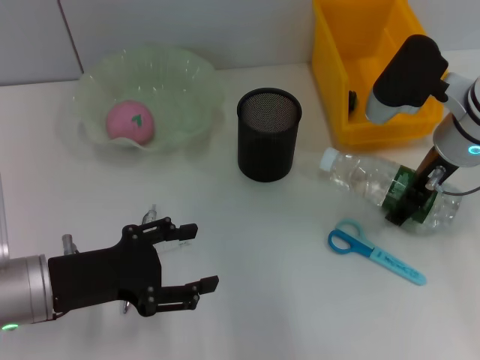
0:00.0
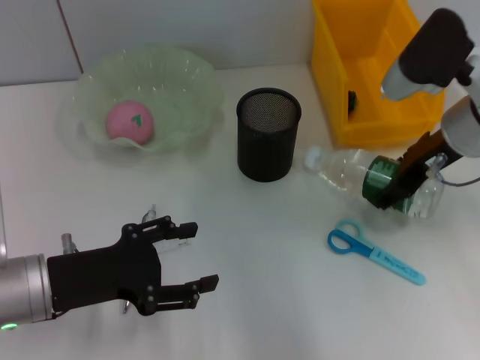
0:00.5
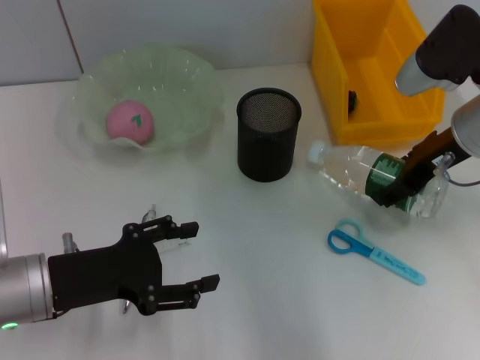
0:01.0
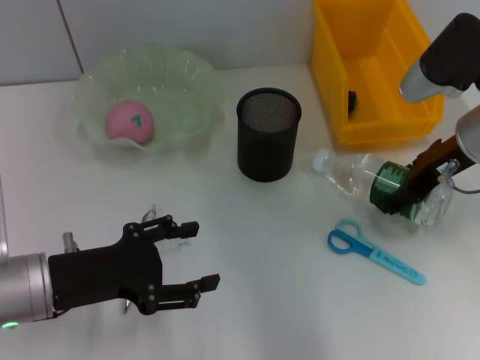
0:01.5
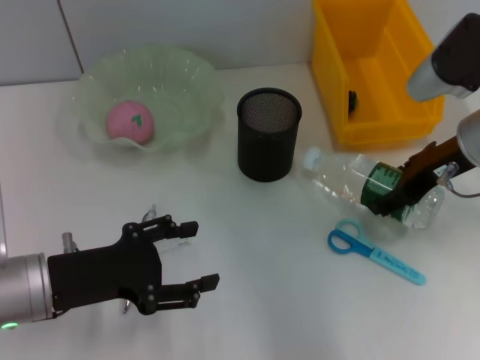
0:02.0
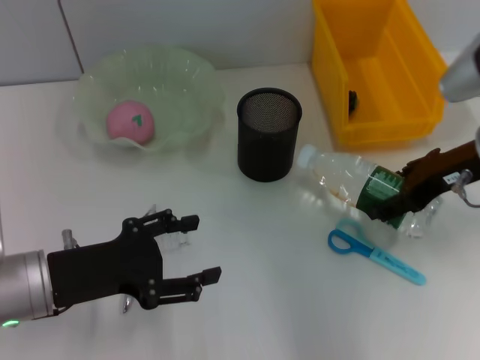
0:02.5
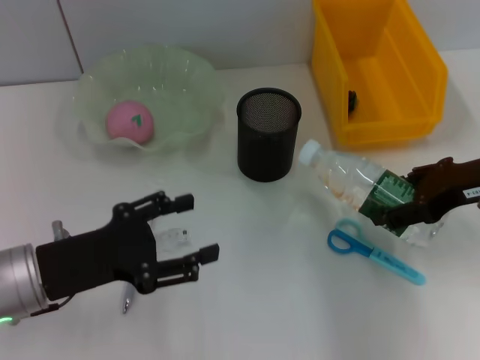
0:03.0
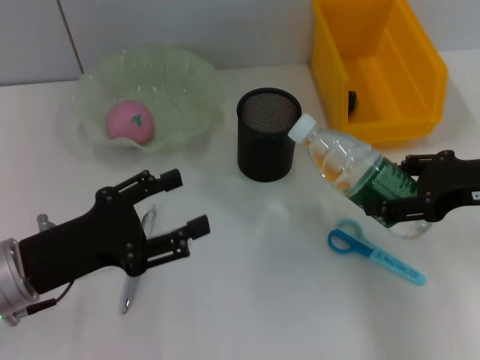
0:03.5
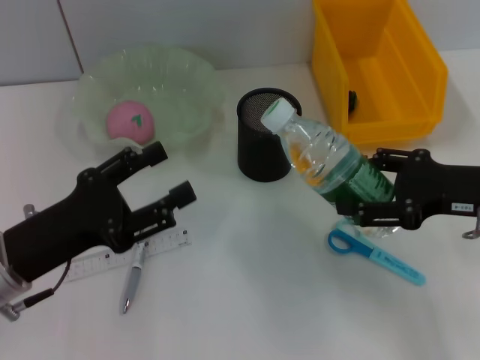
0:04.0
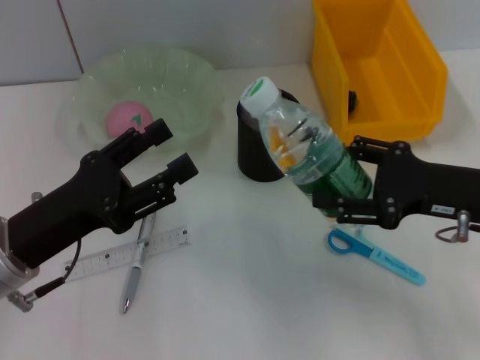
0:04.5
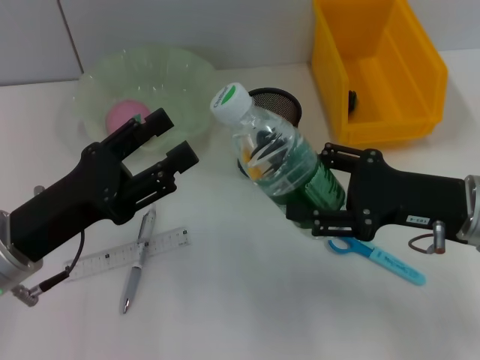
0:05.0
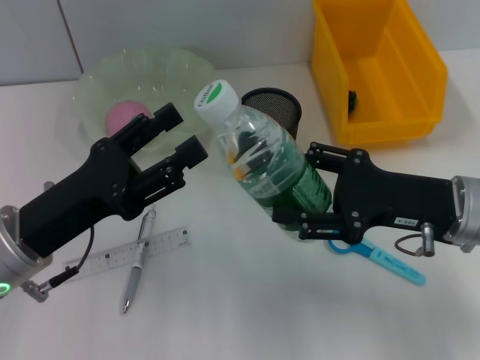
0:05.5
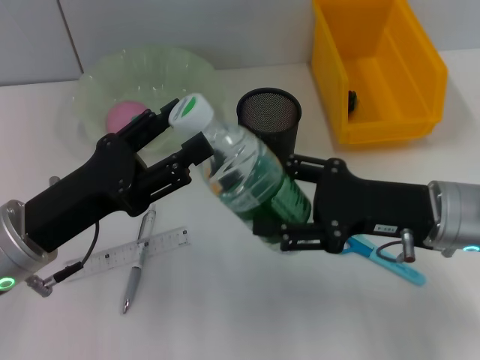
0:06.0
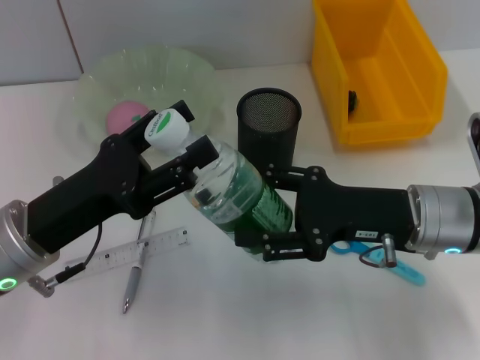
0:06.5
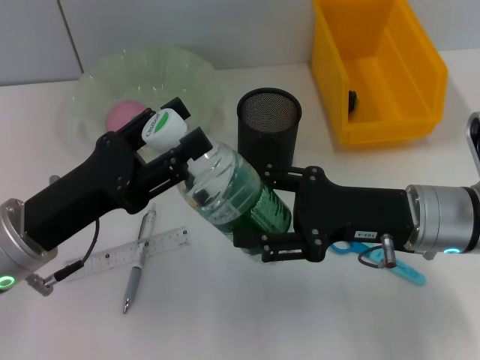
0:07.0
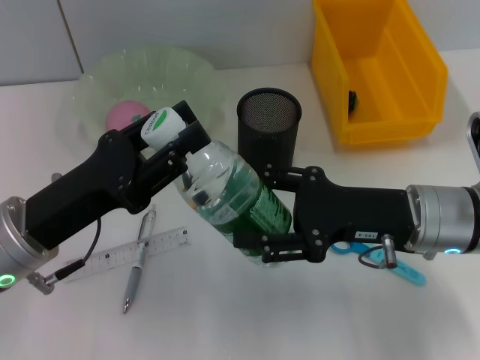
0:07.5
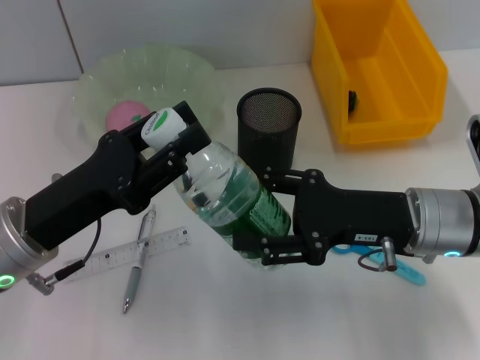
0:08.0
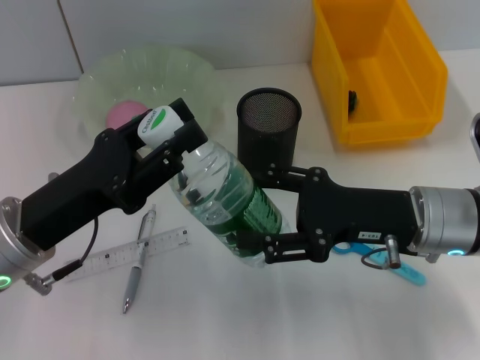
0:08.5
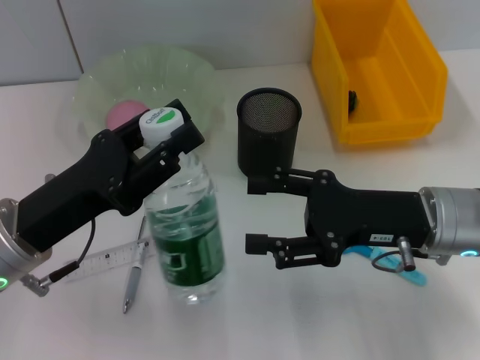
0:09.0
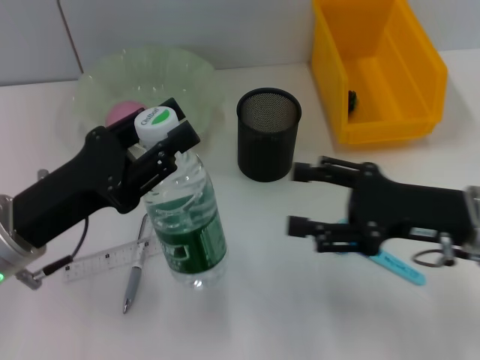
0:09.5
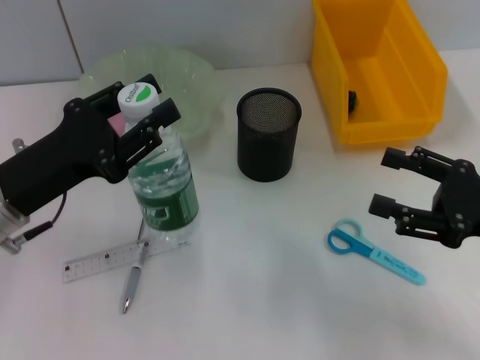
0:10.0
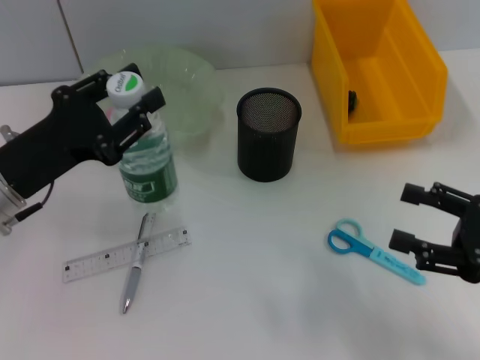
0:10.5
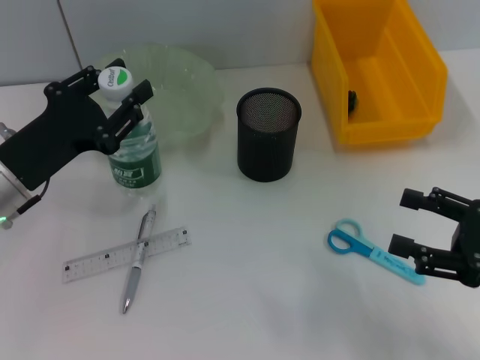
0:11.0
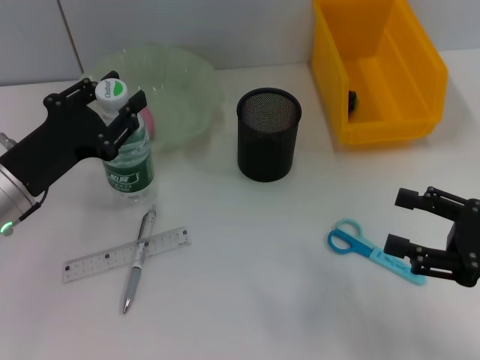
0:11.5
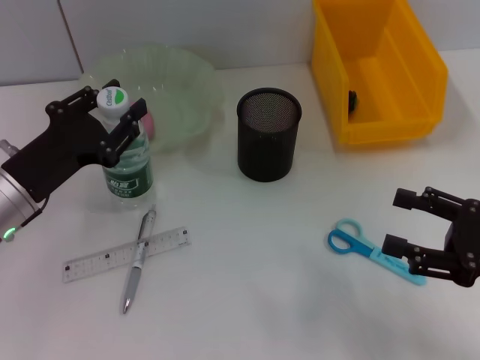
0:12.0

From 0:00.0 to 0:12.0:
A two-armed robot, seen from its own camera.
Step, from 0:00.5 to 0:09.0: Pass the water bottle from the right hand to the left hand.
From 0:00.0 to 0:02.0: There are only small adjustments of the grippers.
From 0:02.0 to 0:04.0: The right gripper shifts approximately 5 cm backward.
From 0:04.0 to 0:06.0: The right gripper shifts some 5 cm to the left.
From 0:06.0 to 0:08.0: The left gripper closes up.
From 0:08.0 to 0:10.0: The right gripper heads to the right, covering about 10 cm.

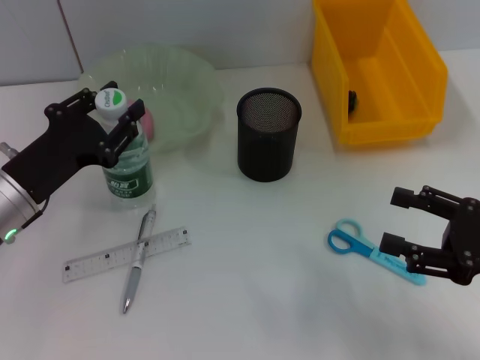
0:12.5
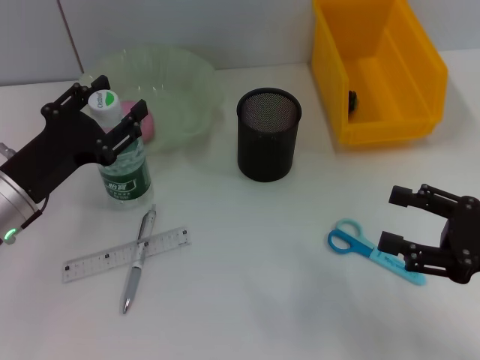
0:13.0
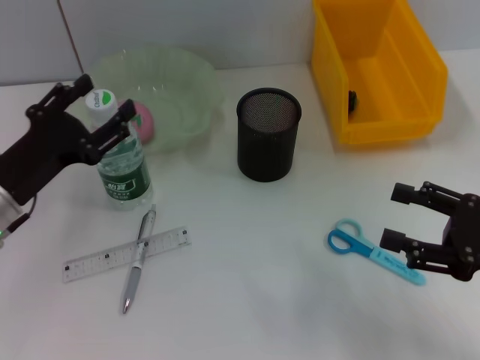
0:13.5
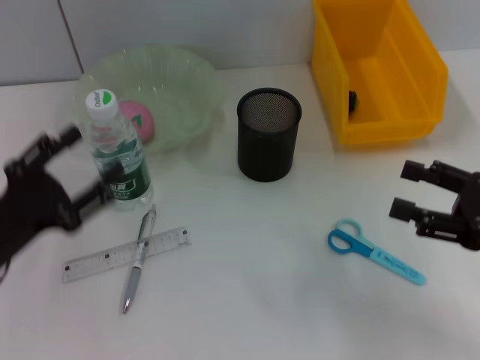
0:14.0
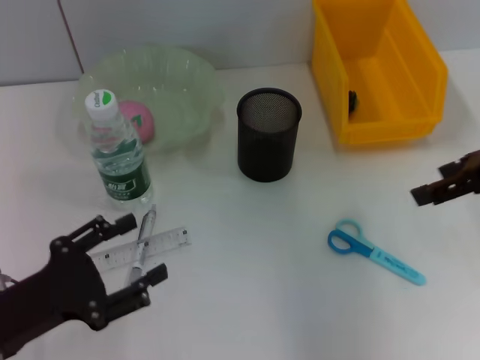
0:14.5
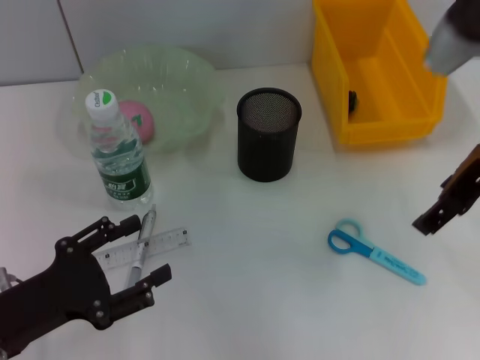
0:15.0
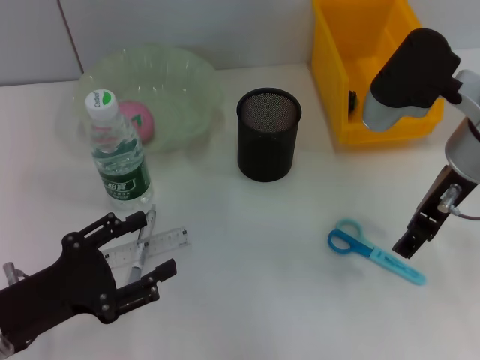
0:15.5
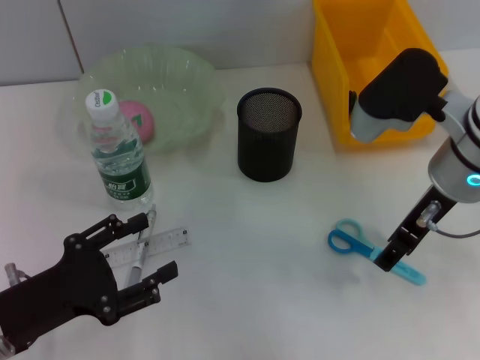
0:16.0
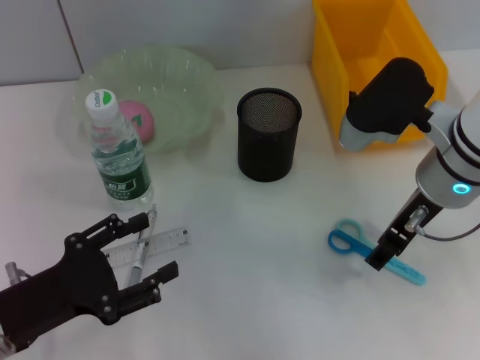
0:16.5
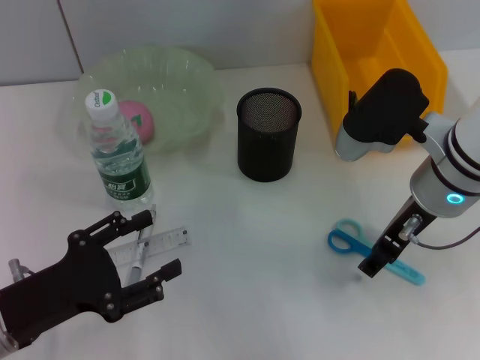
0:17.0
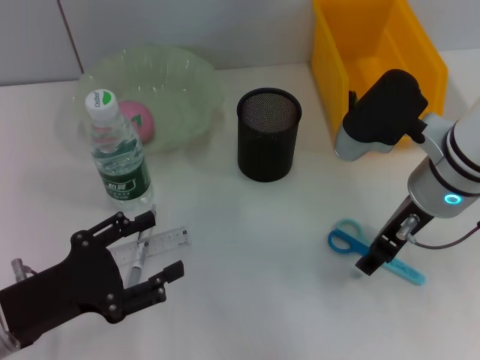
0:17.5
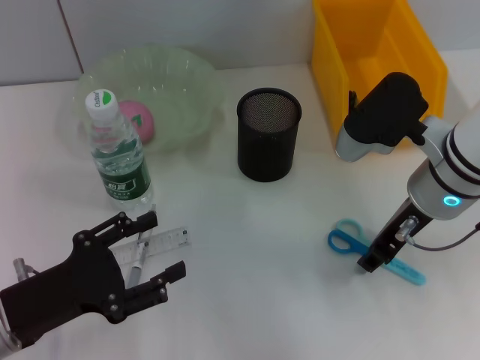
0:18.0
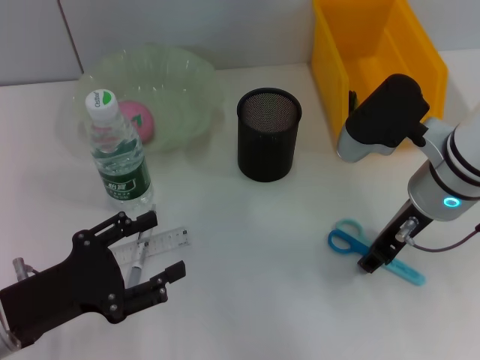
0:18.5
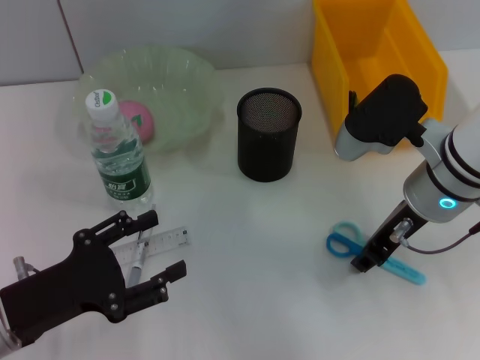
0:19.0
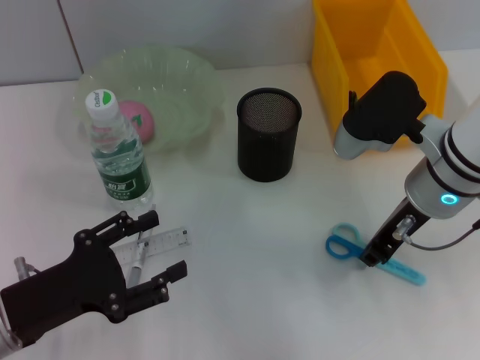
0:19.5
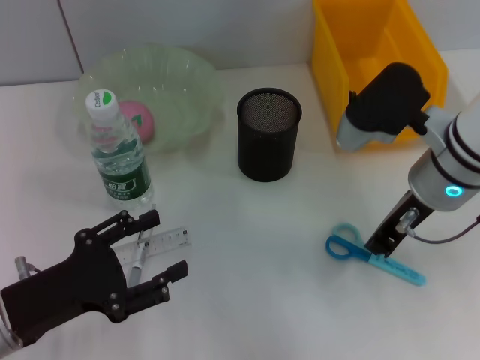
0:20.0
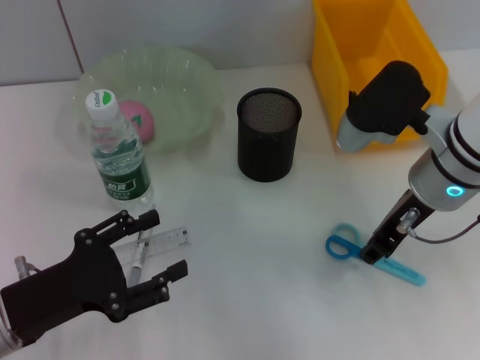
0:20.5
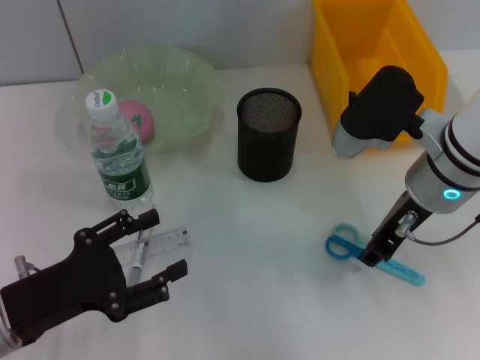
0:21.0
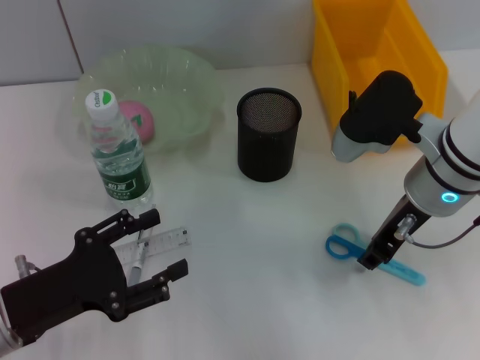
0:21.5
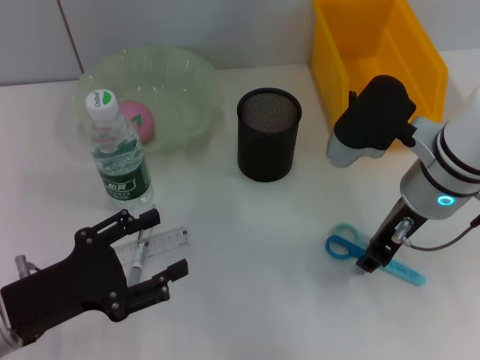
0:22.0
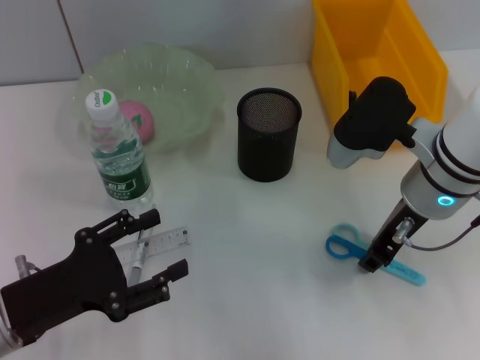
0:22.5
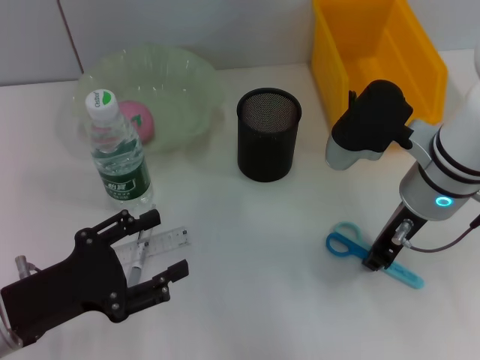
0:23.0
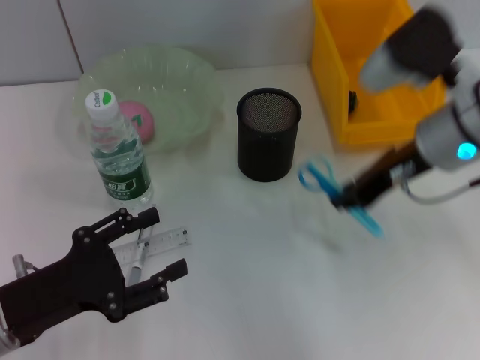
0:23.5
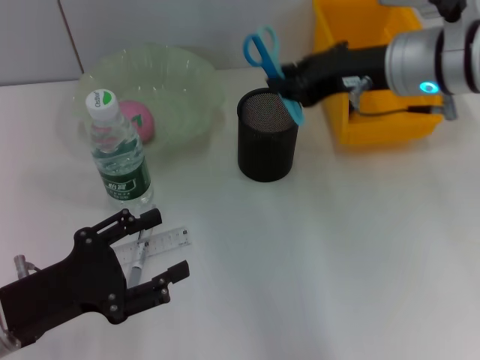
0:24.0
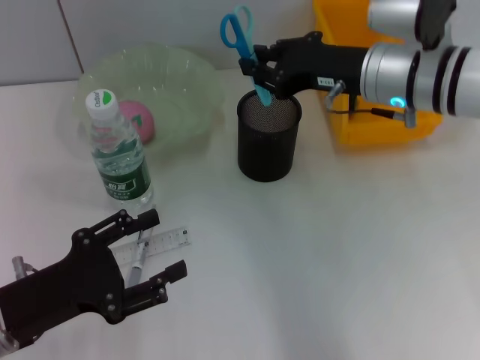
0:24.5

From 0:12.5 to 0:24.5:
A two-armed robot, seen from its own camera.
Step, from 0:13.5 to 0:22.5: Grab the blue scissors with the right hand.
From 0:12.5 to 0:14.5: The right gripper is displaced upward and forward by roughly 15 cm, while the left gripper shifts approximately 10 cm backward, and opens.
From 0:14.5 to 0:16.5: The right gripper heads to the left and downward, covering roughly 15 cm.
From 0:16.5 to 0:20.5: There are only small adjustments of the grippers.
From 0:20.5 to 0:22.5: Both grippers stay put.
From 0:22.5 to 0:24.5: The right gripper moves forward, about 5 cm.

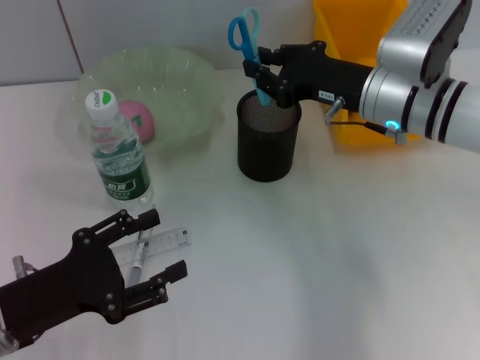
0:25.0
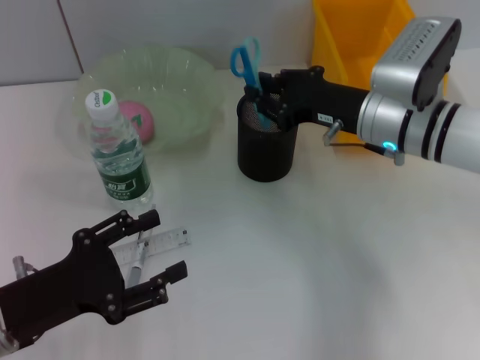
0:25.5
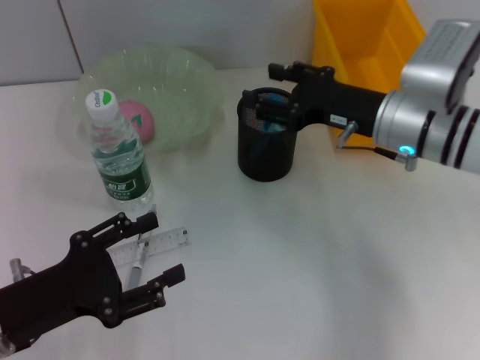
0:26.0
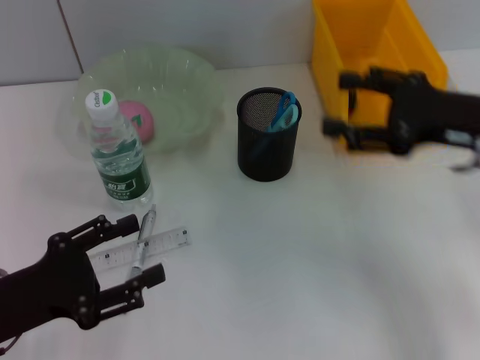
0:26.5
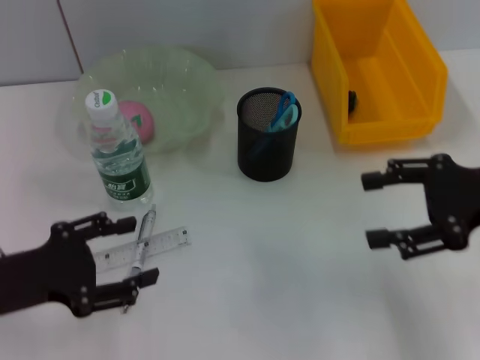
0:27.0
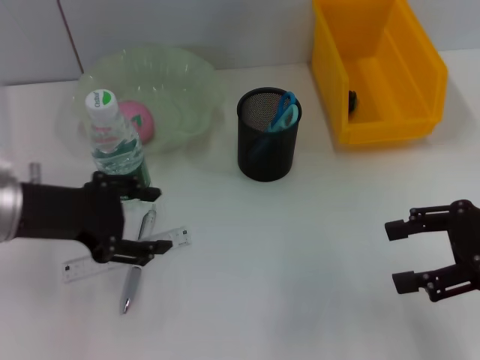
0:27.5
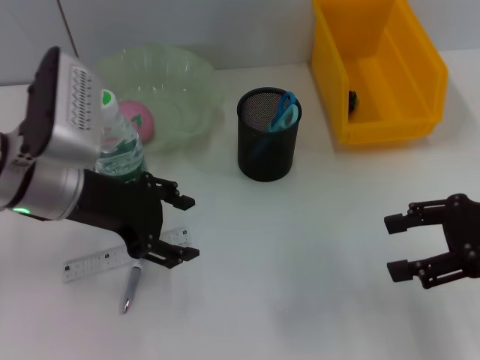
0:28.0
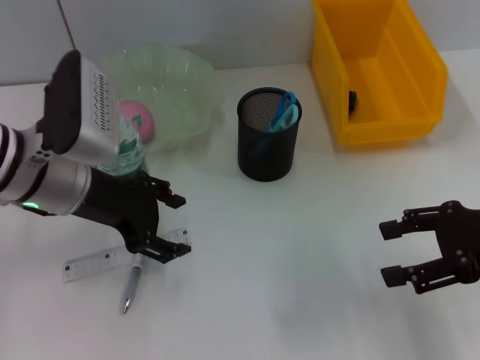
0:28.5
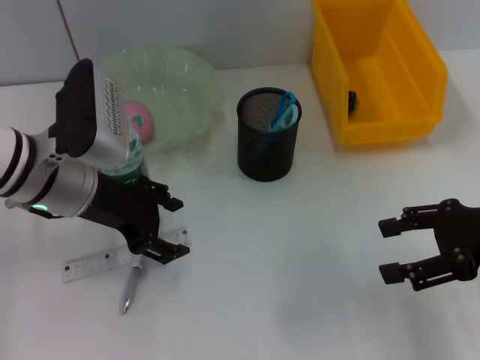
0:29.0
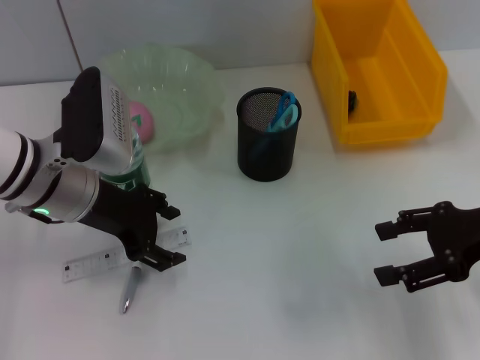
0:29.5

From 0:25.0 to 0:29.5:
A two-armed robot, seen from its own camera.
From 0:25.0 to 0:27.0: The right gripper travels to the right and backward by roughly 15 cm, and opens its fingers.
From 0:27.0 to 0:29.5: The left gripper travels forward and to the right by roughly 15 cm.
